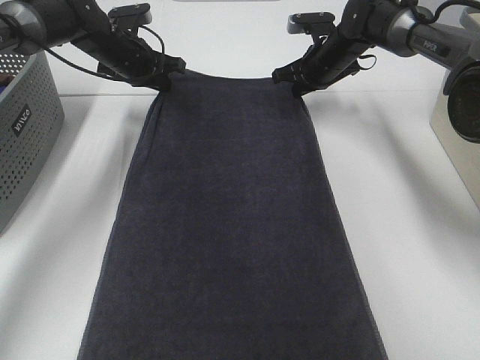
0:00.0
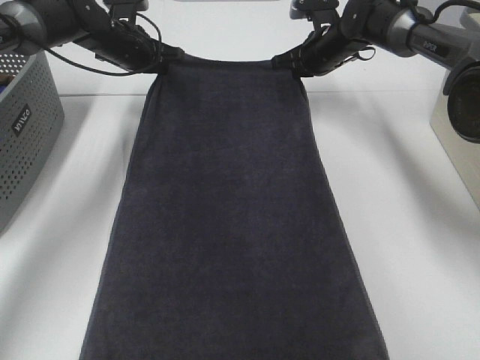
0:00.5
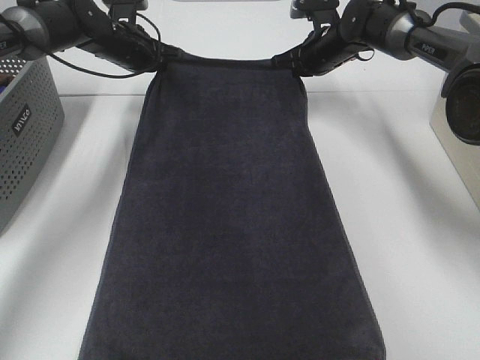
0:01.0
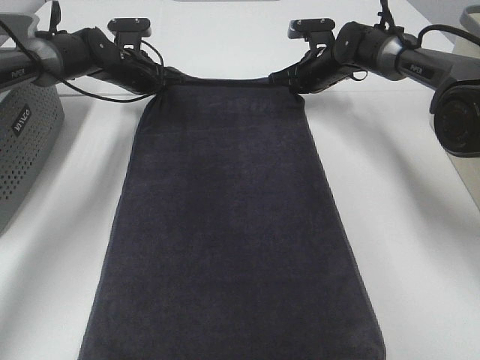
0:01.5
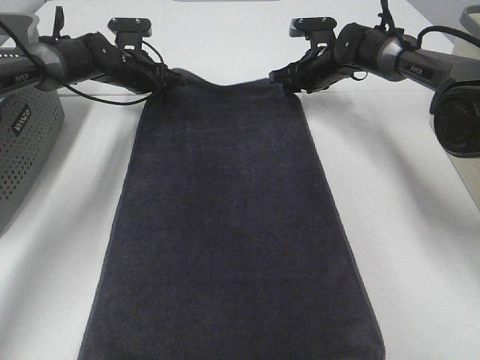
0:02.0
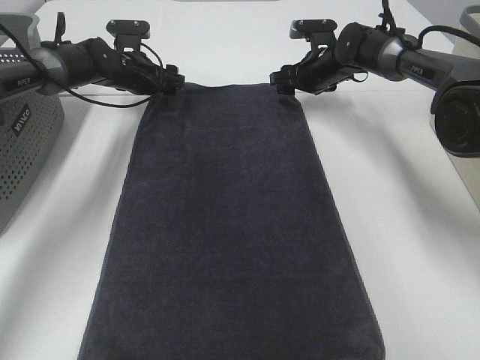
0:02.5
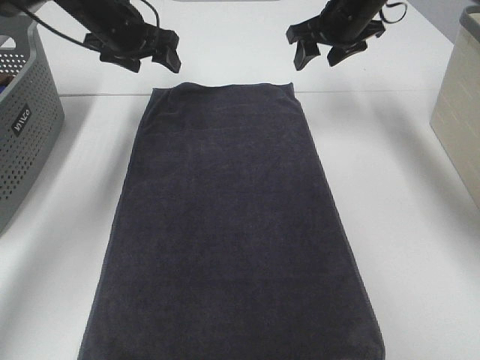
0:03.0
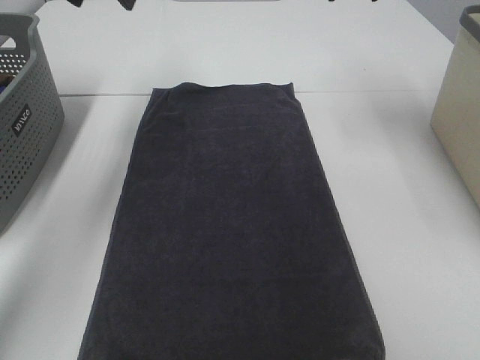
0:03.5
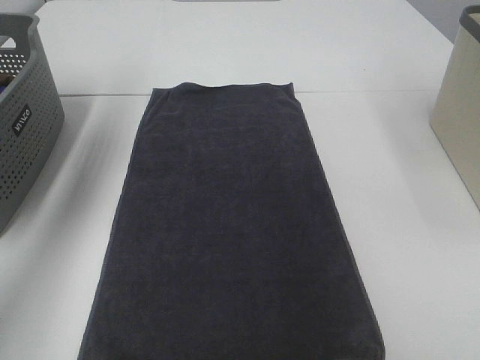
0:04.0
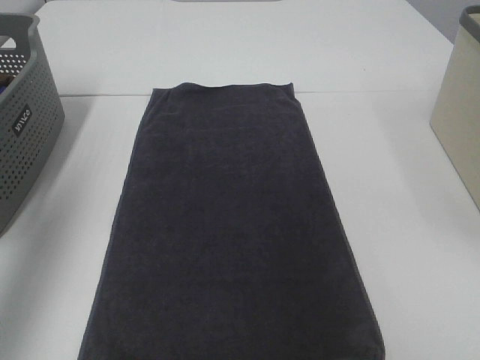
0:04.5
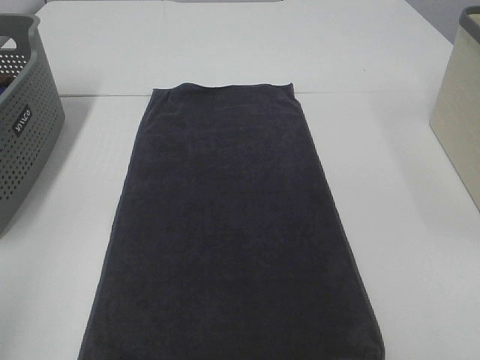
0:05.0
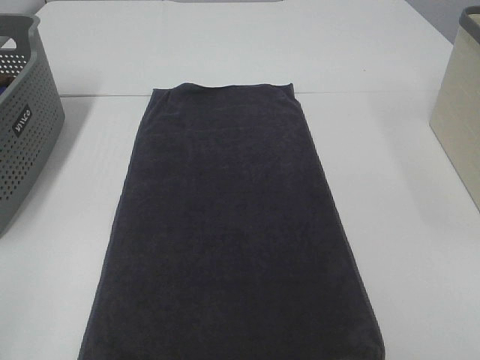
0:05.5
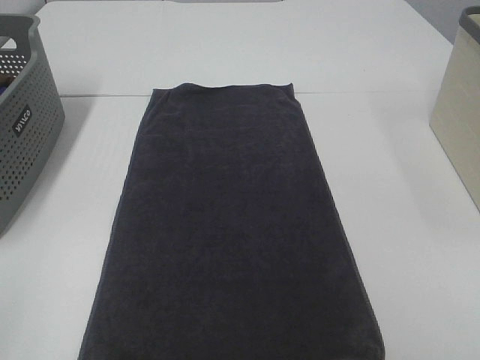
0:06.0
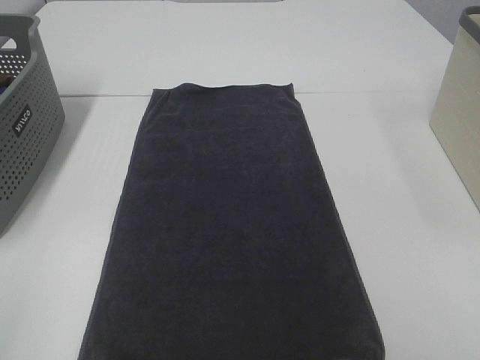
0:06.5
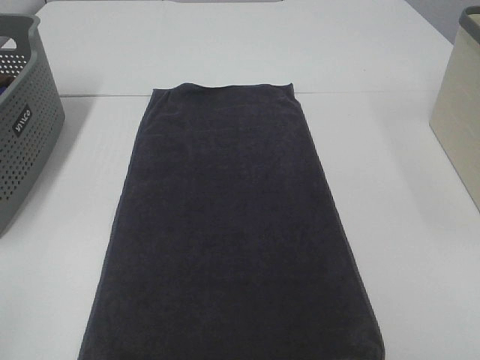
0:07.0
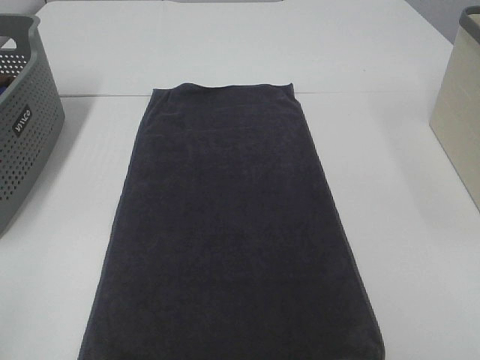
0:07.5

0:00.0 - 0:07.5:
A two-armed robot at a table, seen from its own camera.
Task of the whole recording: Remove the towel and place it.
0:00.0 - 0:02.0: The right gripper opens up. Meanwhile the left gripper moves about 5 cm, and opens its fingers.
0:02.0 - 0:04.0: The grippers both shift upward and backward by approximately 35 cm. The left gripper opens.
0:04.0 - 0:05.5: The left gripper shifts about 40 cm backward.

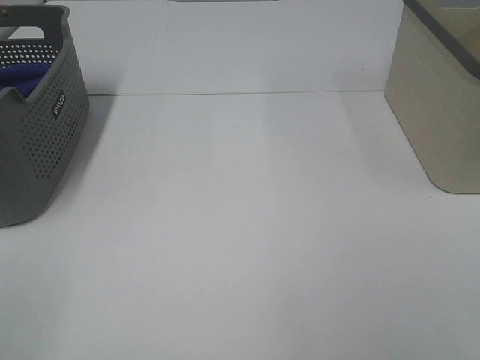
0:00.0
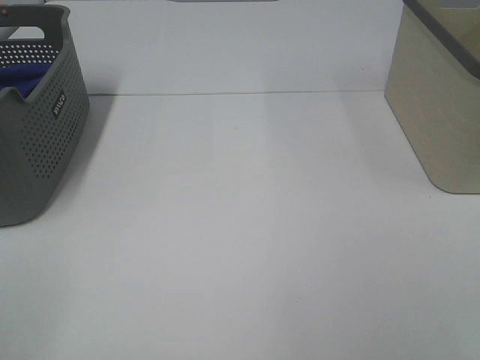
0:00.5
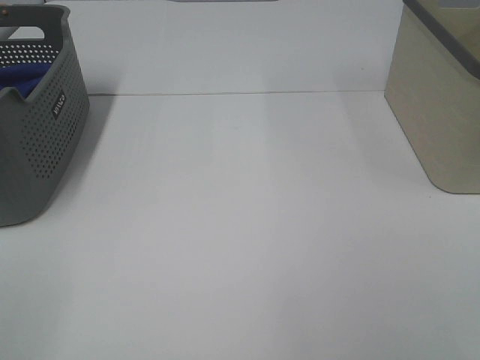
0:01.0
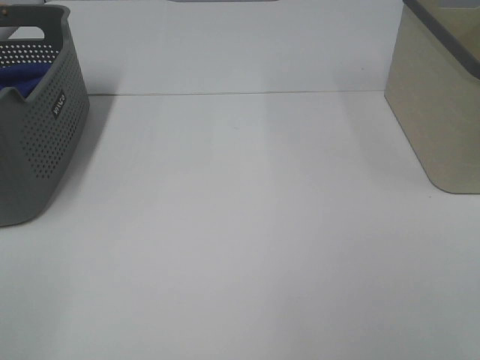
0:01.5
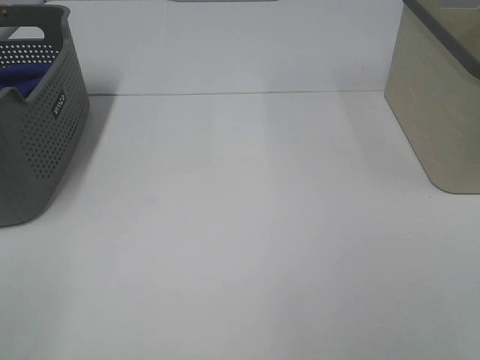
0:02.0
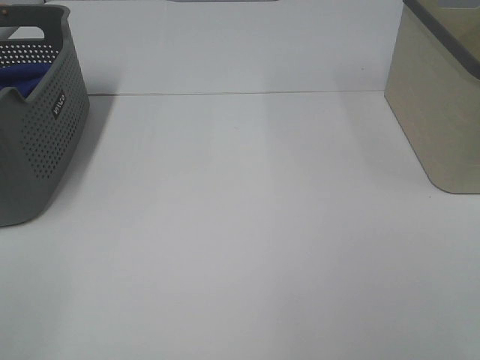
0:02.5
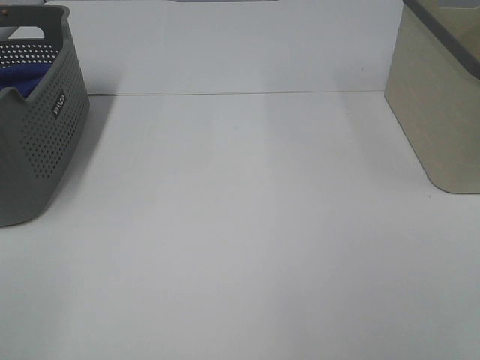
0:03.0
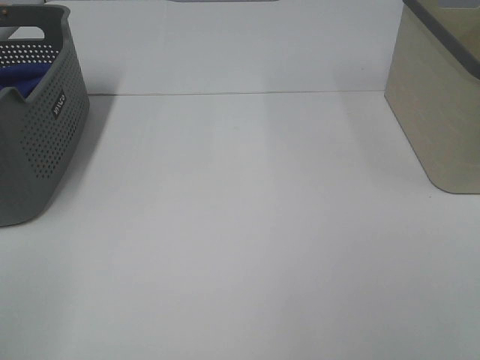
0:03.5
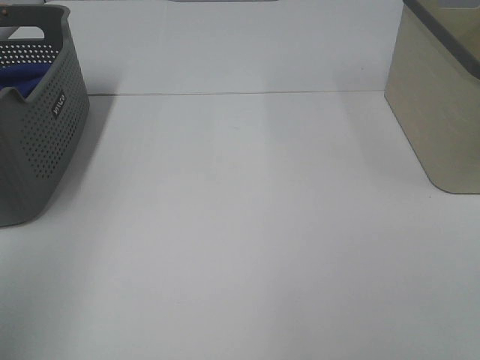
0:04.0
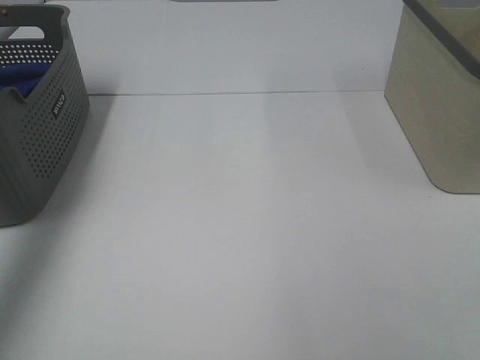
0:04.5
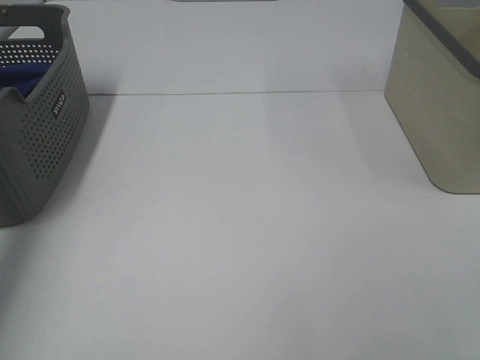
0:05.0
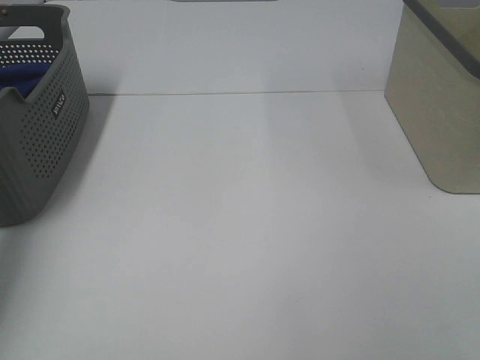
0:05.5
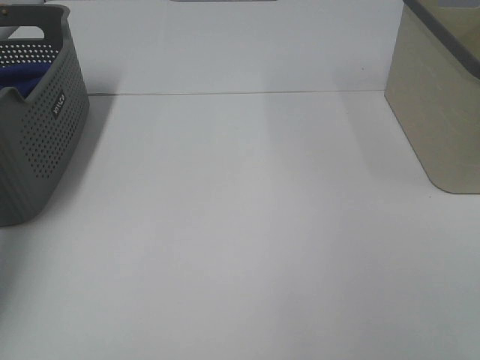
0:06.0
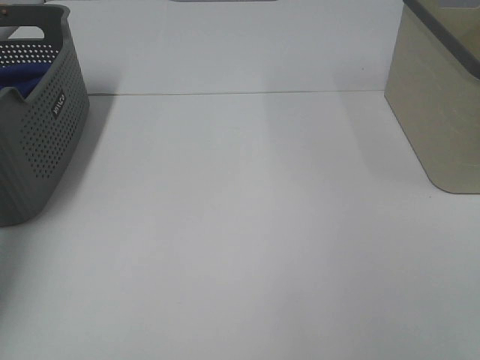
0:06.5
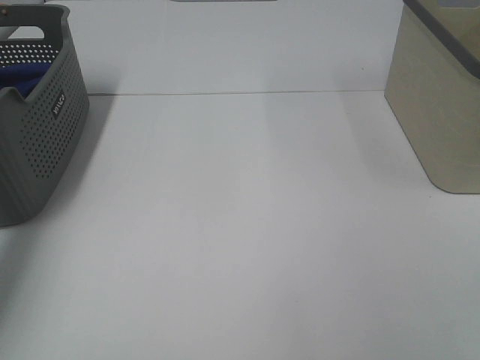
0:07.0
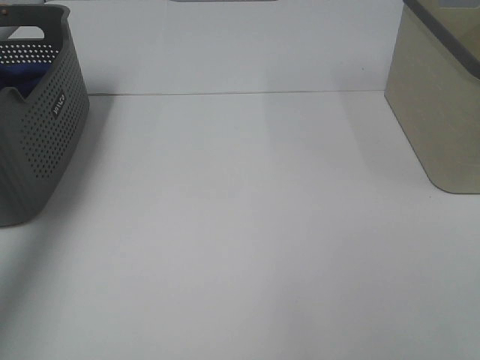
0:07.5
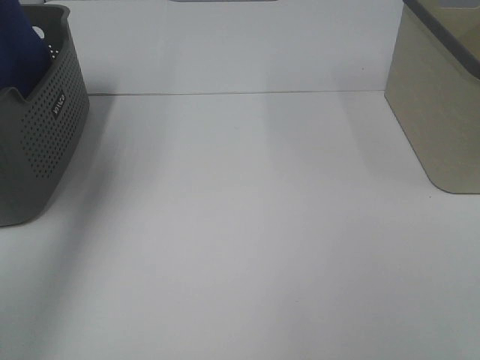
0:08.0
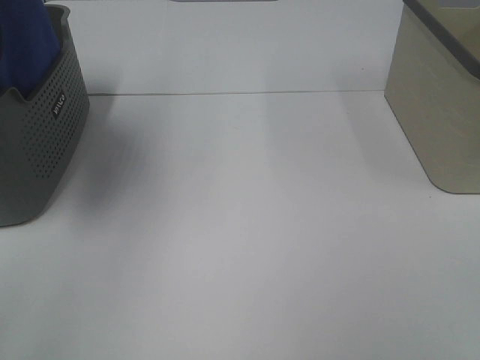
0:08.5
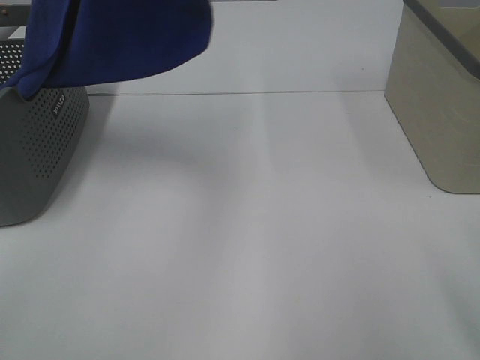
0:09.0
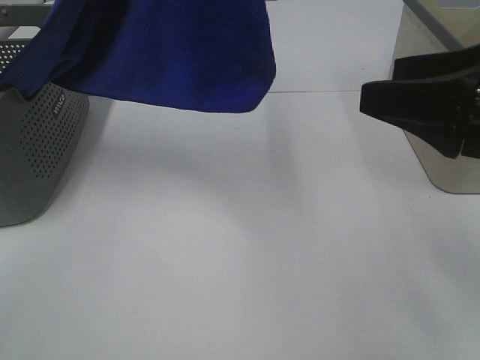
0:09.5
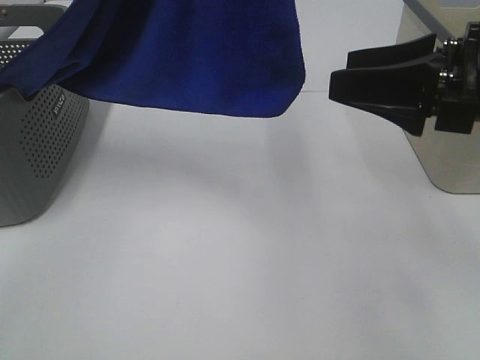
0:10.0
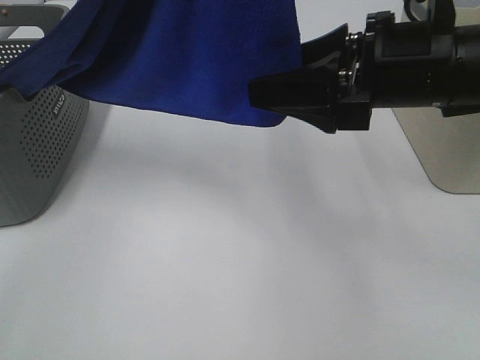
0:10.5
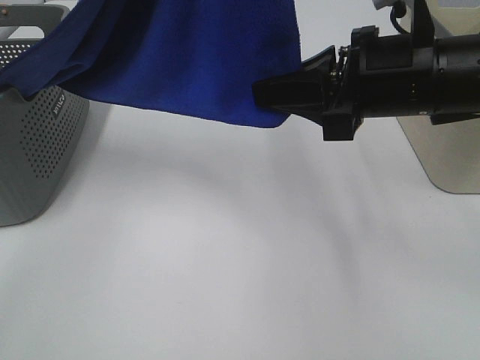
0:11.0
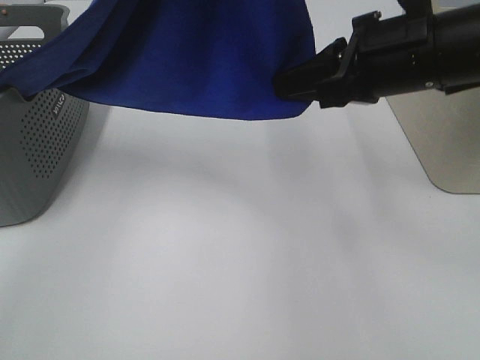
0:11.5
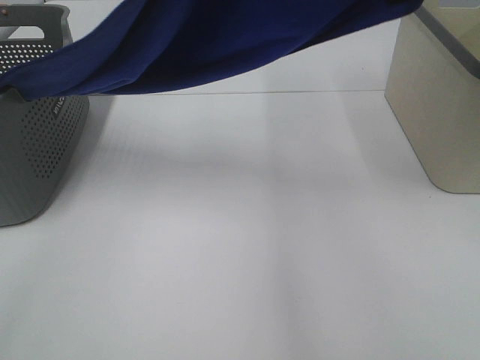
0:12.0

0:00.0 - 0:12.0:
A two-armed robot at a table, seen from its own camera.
Task of the whole recording: Remove the towel and place it.
Step, 0:07.5 - 0:11.5: Right hand: grab a corner of the blue towel and straighten it.
0:00.0 - 0:02.0: Both grippers stay put.
0:02.0 - 0:04.0: The left gripper shifts approximately 20 cm forward and upward.
0:04.0 - 0:06.0: The left gripper goes roughly 40 cm forward and downward, and closes its fingers.
0:06.0 - 0:08.0: The left gripper shifts roughly 30 cm upward and to the right, and closes.
0:08.0 - 0:10.0: The right gripper goes some 25 cm forward, while the left gripper shifts some 25 cm to the right and backward.
0:10.0 - 0:12.0: The right gripper travels upward and forward by some 15 cm, and closes.

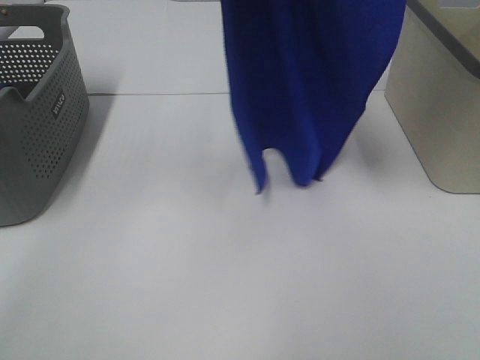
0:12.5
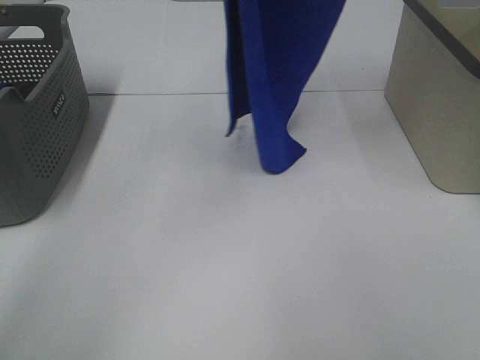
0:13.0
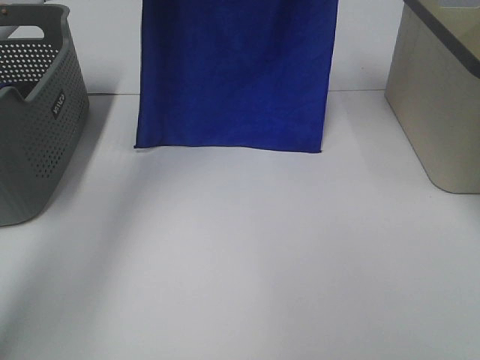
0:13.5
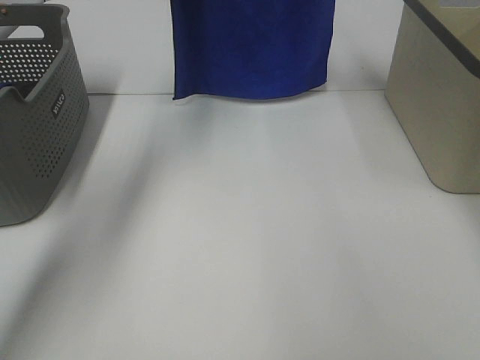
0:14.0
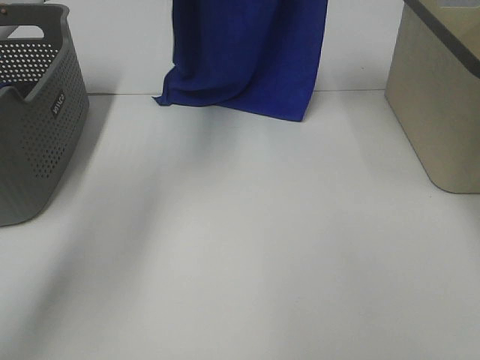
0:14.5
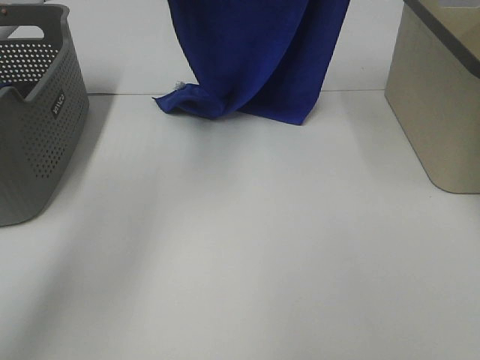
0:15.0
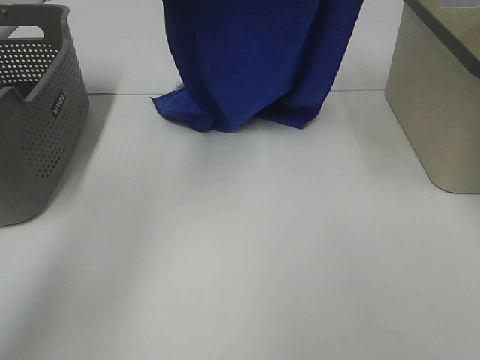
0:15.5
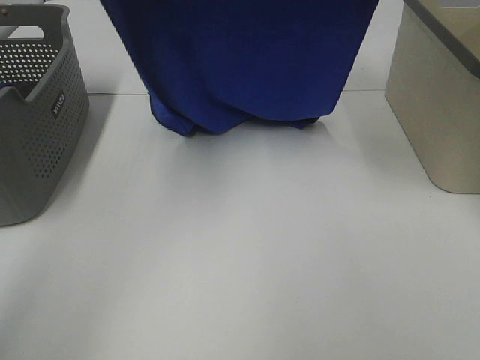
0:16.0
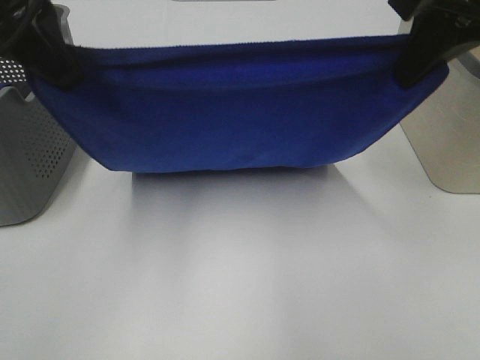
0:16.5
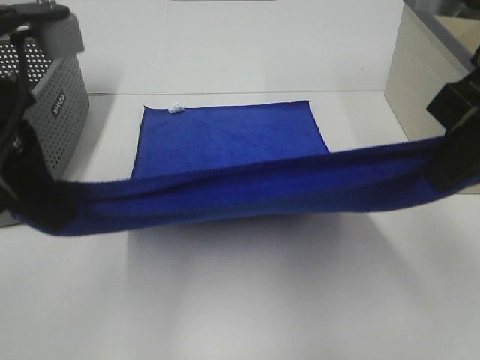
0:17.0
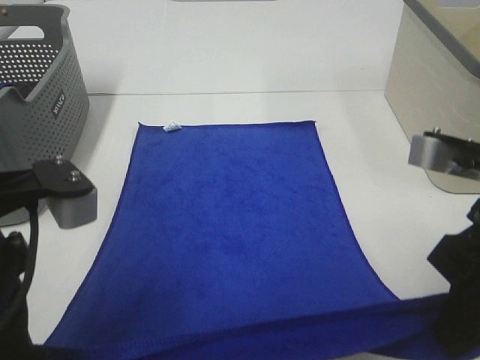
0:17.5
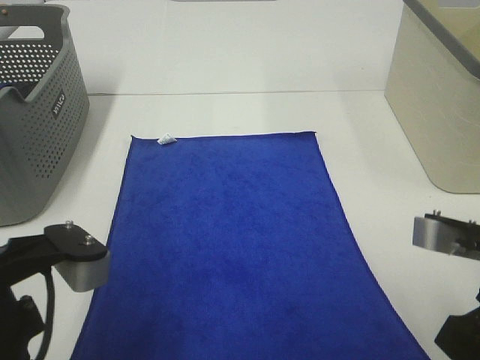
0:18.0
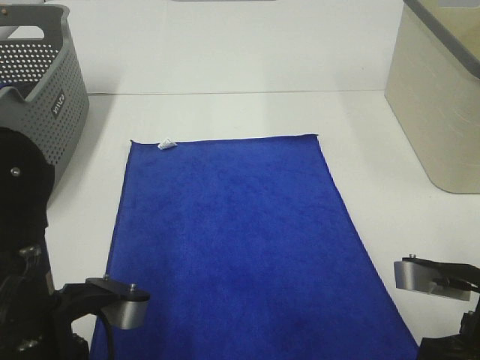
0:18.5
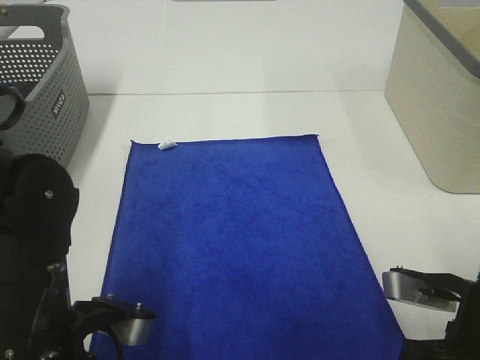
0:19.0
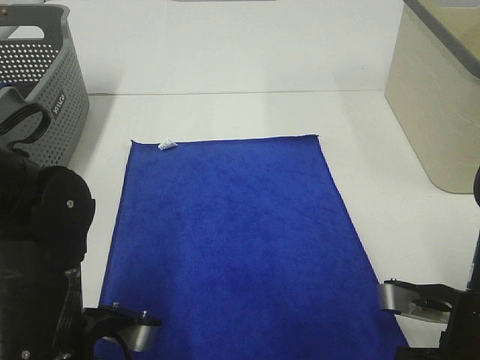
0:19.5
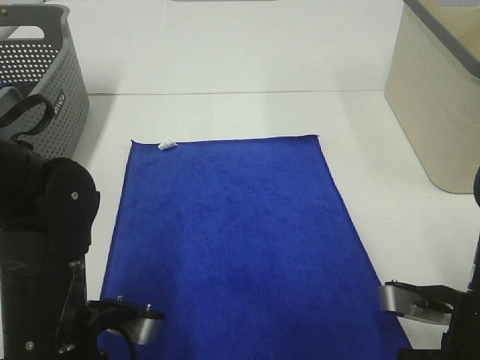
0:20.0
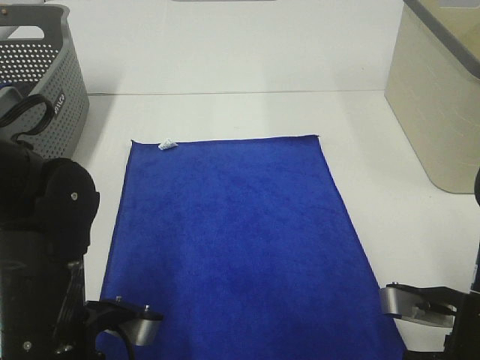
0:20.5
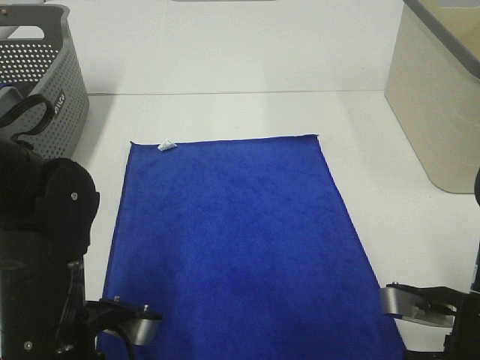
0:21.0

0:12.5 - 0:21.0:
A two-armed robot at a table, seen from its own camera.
Task of the whole recording: Remove the towel and place it.
Step, 0:12.5 - 0:16.5: Left hand: spread the blue towel flat on the table.
Step, 0:12.5 - 0:17.5: Right hand: spread the blue towel flat on the table.
0:12.5 - 0:14.5: The right gripper heads forward, covering roughly 15 cm; the left gripper travels forward and downward by approximately 20 cm.
0:14.5 - 0:16.5: Both grippers move backward, roughly 20 cm.
0:16.5 - 0:19.0: The two grippers go about 25 cm downward and backward.
0:19.0 - 0:21.0: The right gripper opens. The left gripper opens its fingers.
